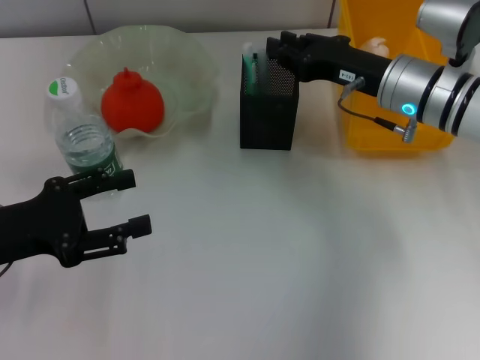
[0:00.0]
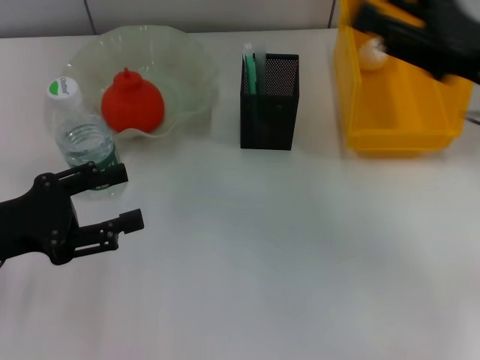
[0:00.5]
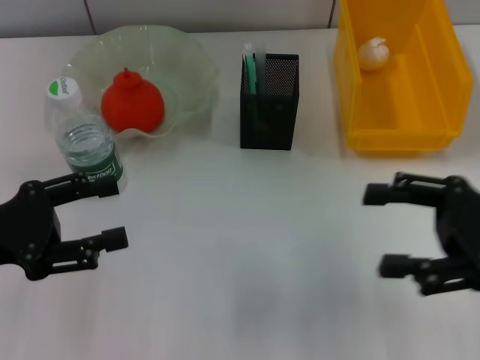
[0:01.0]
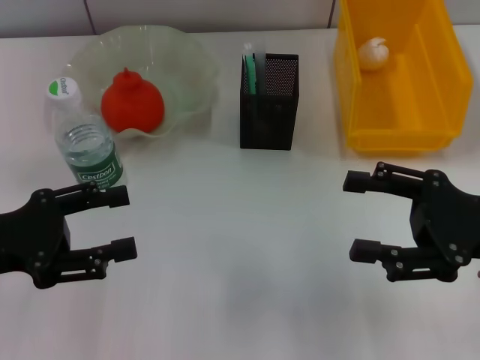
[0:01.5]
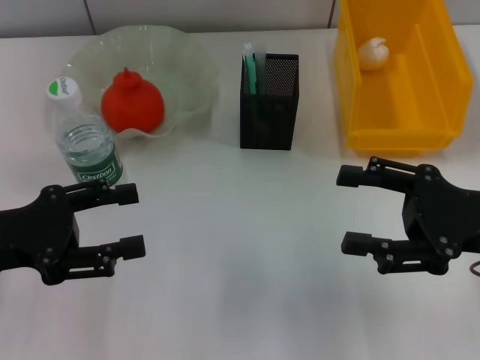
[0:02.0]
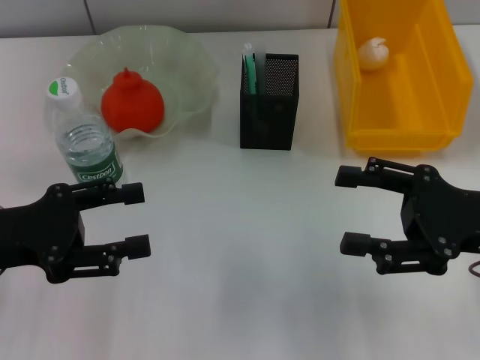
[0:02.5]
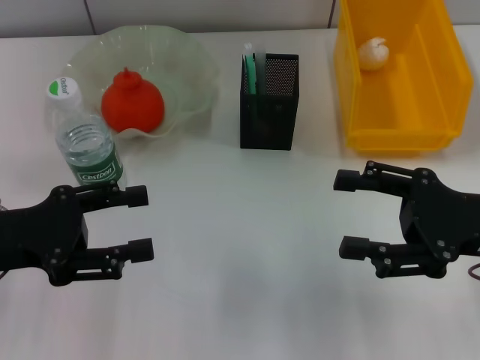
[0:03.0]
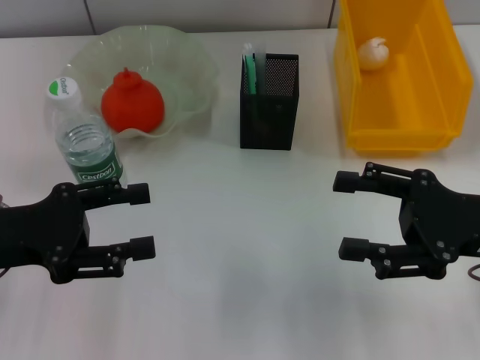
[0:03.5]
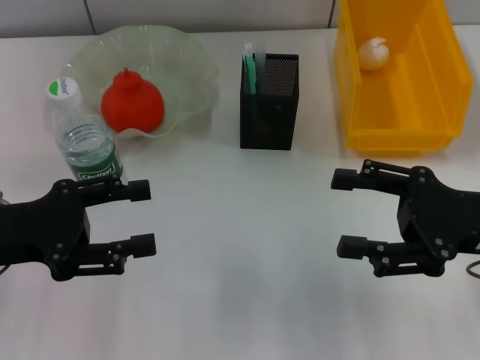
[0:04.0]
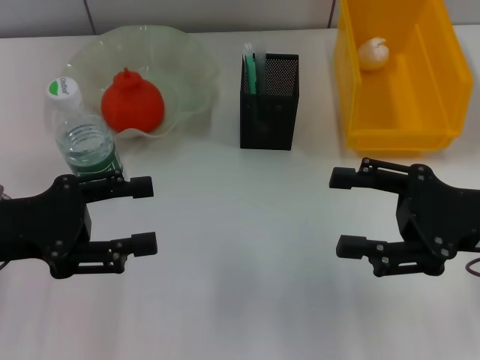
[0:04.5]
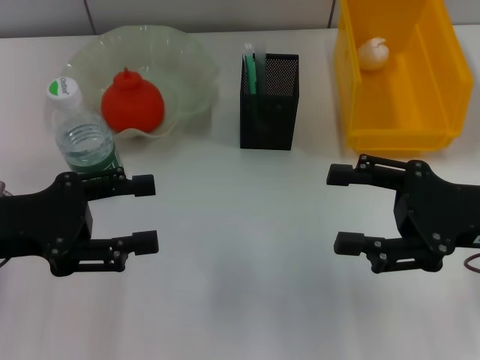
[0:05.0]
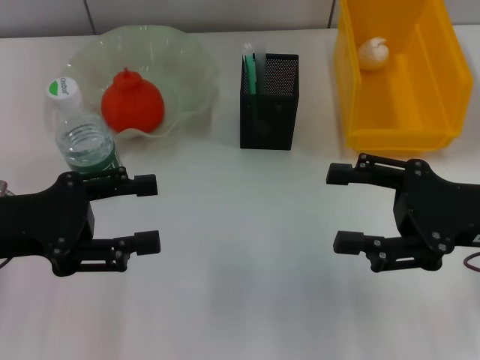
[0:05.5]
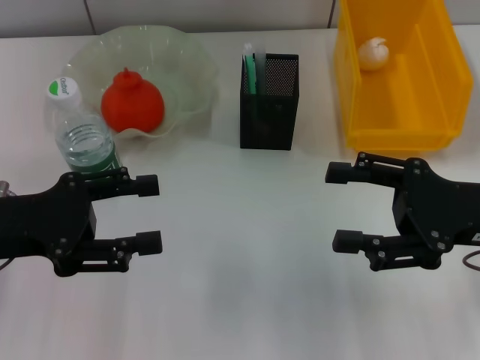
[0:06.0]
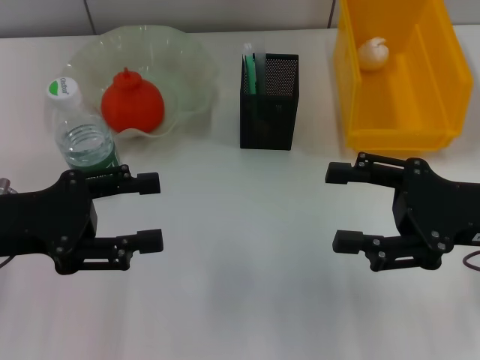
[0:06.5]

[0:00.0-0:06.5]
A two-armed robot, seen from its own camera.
0:00.0 to 0:02.0: The right gripper goes some 15 cm backward and to the right, and opens up.
0:02.0 to 0:04.5: The grippers make only small movements.
0:04.5 to 0:06.5: Neither gripper changes place.
